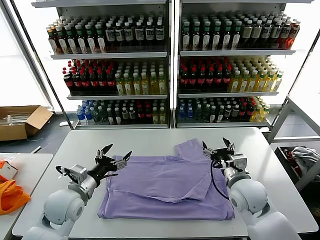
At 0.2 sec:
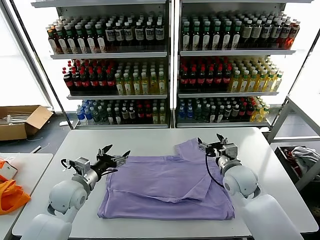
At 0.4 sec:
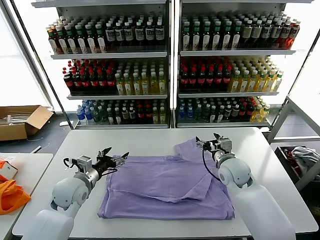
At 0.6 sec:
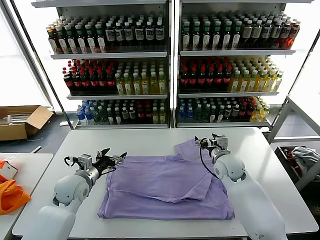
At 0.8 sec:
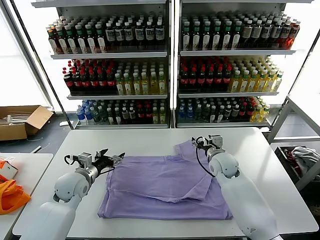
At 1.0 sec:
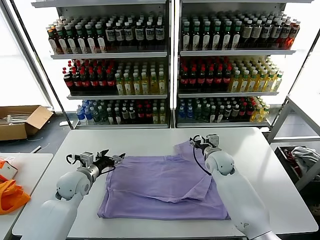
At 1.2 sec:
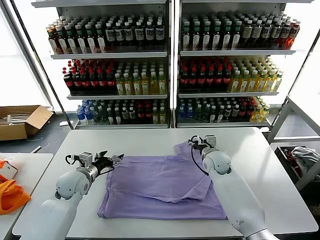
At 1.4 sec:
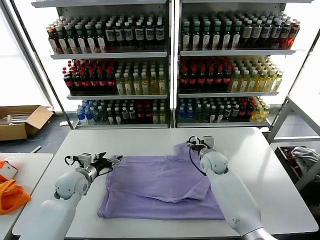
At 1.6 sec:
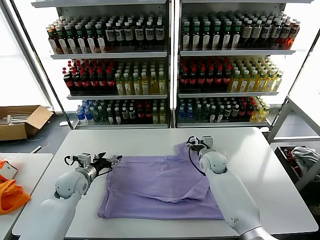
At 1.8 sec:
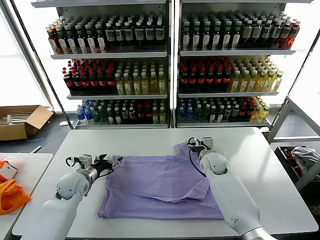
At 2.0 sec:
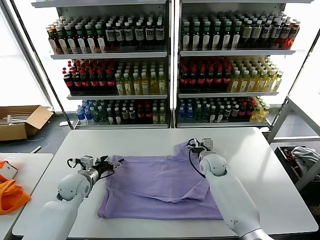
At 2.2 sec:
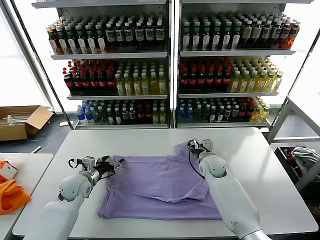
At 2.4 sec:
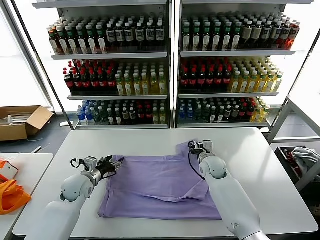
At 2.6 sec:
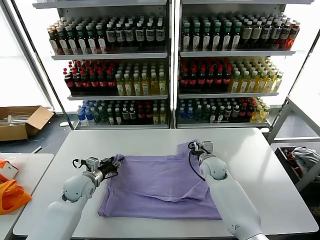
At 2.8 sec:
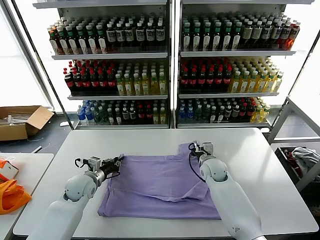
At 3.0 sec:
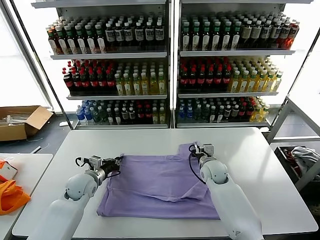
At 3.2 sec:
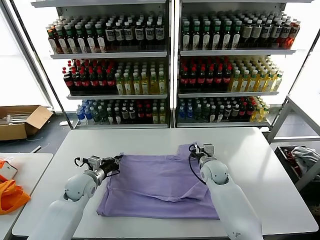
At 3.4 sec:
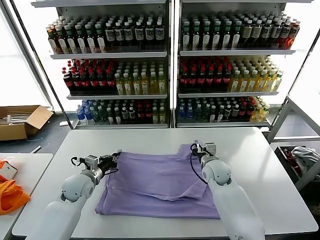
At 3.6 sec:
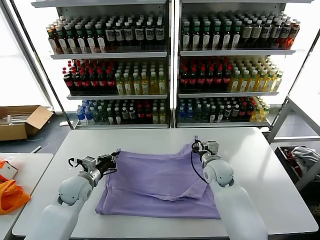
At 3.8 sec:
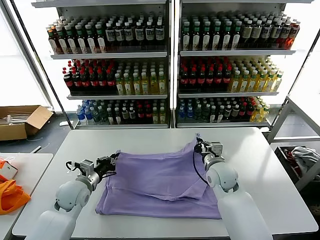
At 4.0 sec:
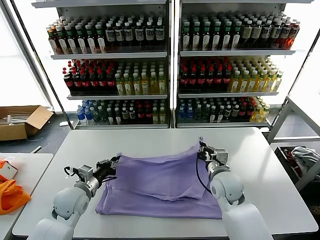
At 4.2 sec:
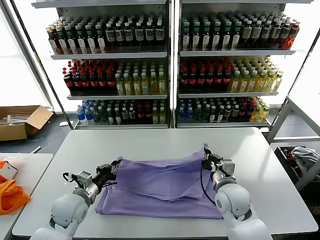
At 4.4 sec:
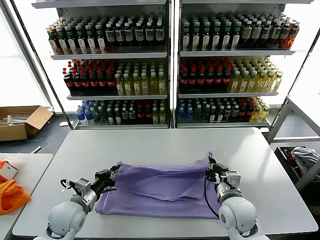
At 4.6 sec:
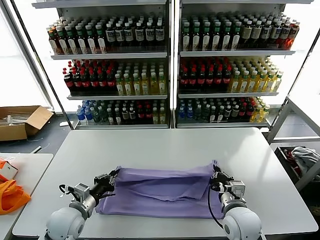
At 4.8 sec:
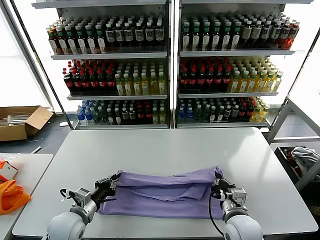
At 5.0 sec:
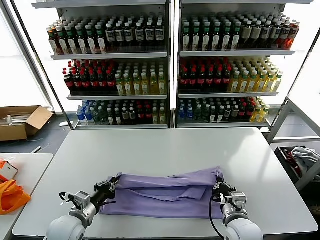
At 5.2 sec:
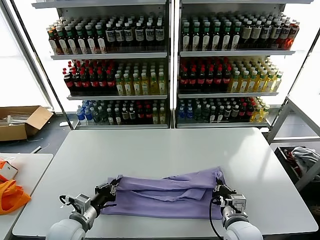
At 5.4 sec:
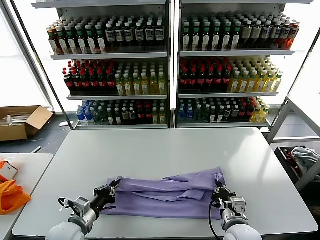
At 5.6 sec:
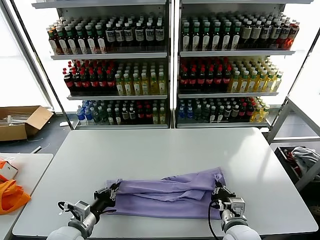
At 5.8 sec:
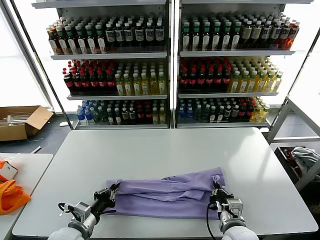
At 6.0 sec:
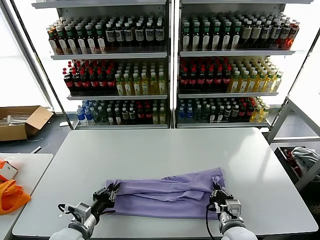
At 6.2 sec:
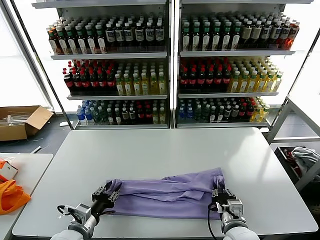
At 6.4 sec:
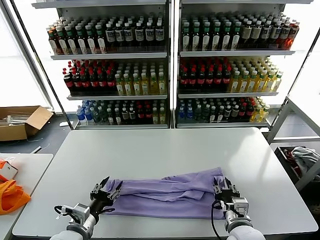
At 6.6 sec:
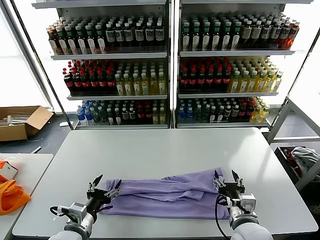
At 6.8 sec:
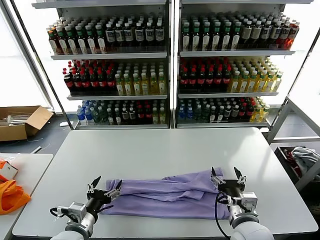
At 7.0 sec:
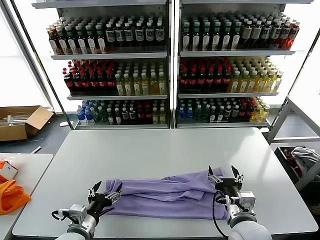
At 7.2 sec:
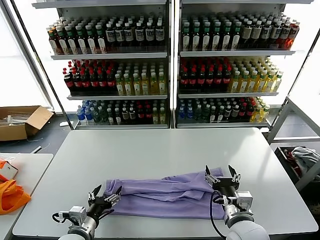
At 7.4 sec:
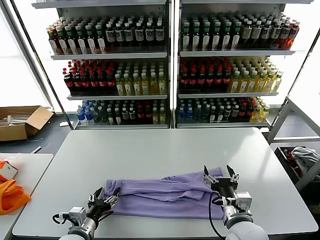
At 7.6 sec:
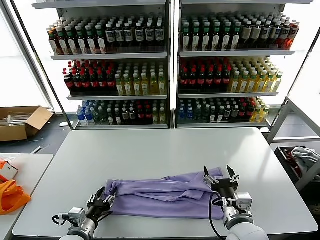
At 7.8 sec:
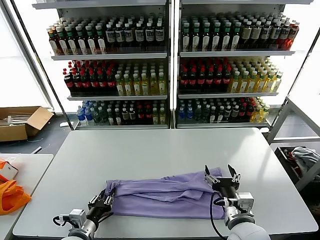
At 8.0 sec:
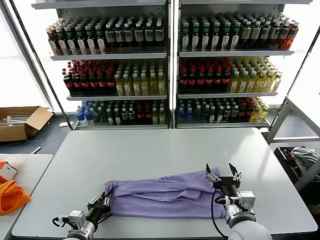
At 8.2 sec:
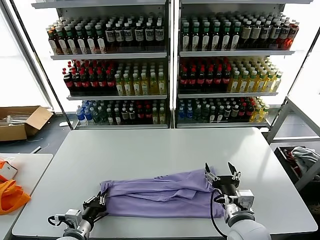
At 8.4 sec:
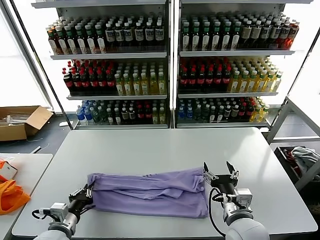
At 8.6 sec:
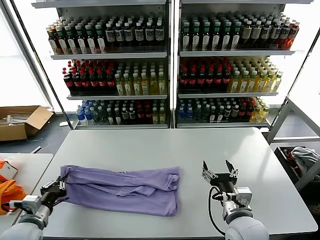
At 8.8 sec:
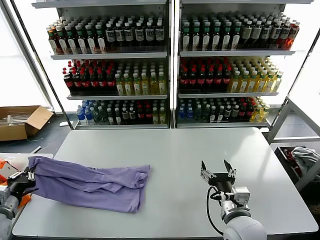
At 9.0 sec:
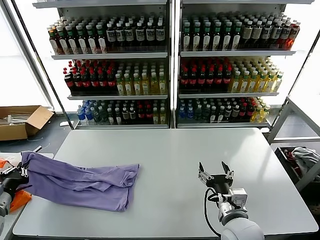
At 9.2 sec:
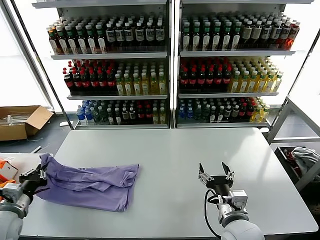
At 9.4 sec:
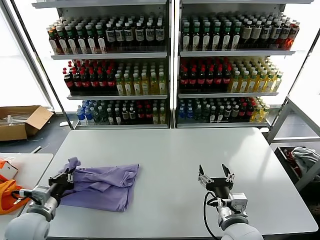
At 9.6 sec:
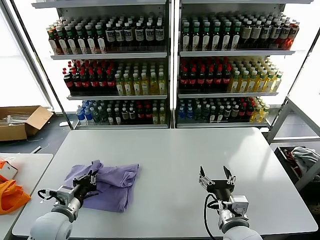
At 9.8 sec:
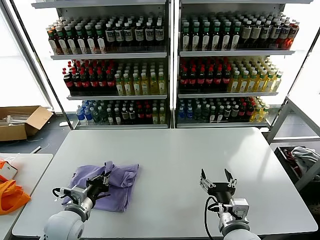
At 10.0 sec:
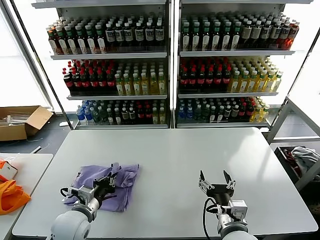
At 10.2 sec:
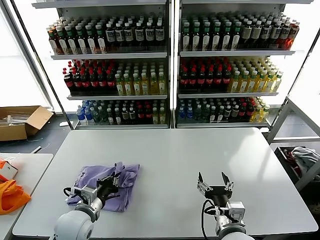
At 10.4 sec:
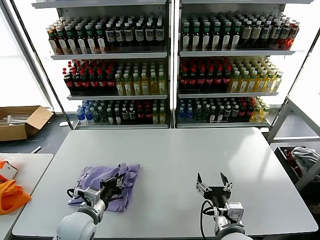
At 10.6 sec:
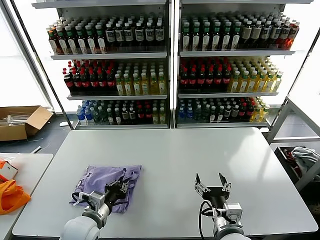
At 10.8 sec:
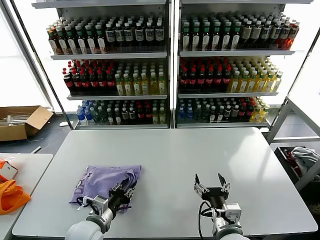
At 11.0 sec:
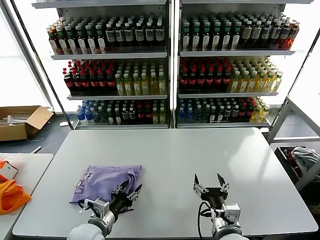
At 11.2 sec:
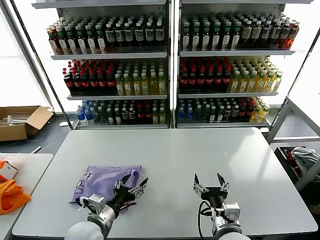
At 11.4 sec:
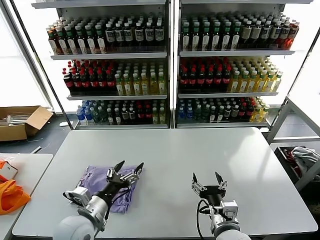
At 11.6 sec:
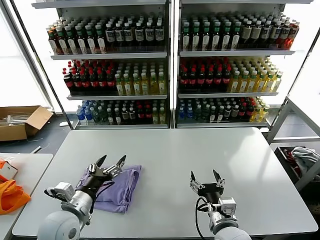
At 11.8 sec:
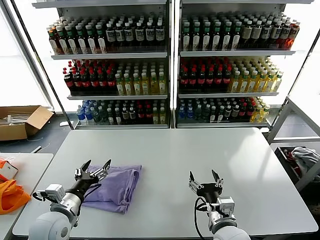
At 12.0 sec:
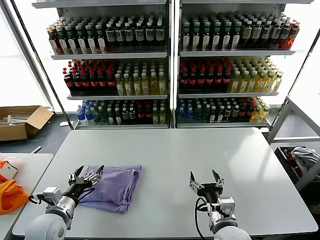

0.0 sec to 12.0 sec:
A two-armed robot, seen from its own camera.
Task of the whole recording: fold and organize the clothes.
Step, 0.0 sec to 3.2 sec: use both grippers simultaneously to clamp the upper edge of the clothing fabric.
Step, 3.4 sec to 6.2 sec: use both grippers to drag the upper edge of the fabric backward and fold it over the lower edge.
Step, 6.4 sec to 8.0 sec: use the left gripper to clamp the left edge of the fabric.
Step, 8.2 sec to 11.0 sec: use the left gripper to drag the left edge of the fabric to the left and folds it over the right edge.
0.0 sec to 1.6 sec: Both grippers travel together forward and downward, roughly 15 cm.
1.6 sec to 3.0 sec: The right gripper closes its fingers. Meanwhile the left gripper closes up.
3.0 sec to 4.4 sec: The left gripper shifts some 10 cm backward. Meanwhile the right gripper goes about 20 cm backward.
4.4 sec to 6.0 sec: The two grippers go approximately 5 cm backward.
6.0 sec to 7.6 sec: The right gripper goes approximately 5 cm upward, and opens its fingers, while the left gripper opens.
7.6 sec to 9.0 sec: The left gripper shifts roughly 25 cm to the left and upward, and closes up.
9.0 sec to 10.4 sec: The left gripper shifts about 25 cm to the right.
10.4 sec to 12.0 sec: The left gripper is displaced to the left by roughly 10 cm, and opens its fingers.

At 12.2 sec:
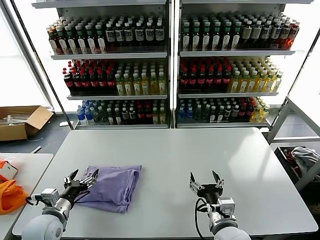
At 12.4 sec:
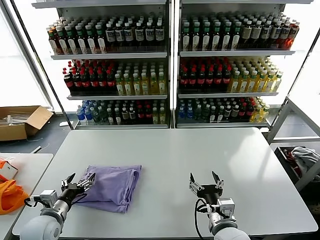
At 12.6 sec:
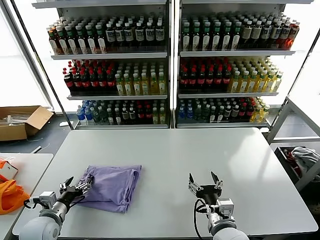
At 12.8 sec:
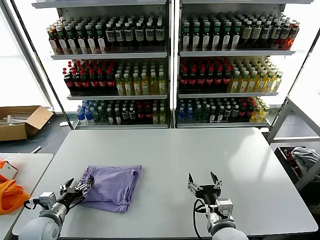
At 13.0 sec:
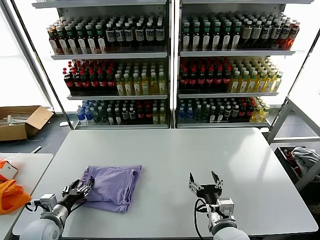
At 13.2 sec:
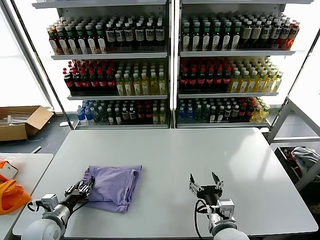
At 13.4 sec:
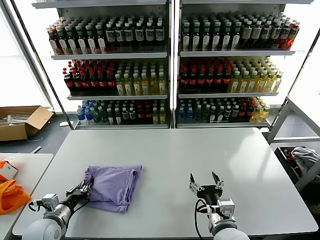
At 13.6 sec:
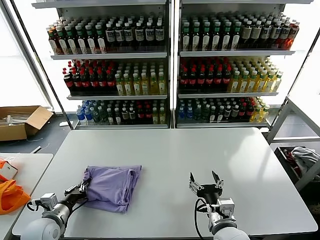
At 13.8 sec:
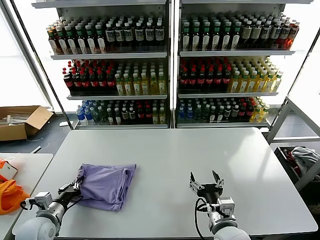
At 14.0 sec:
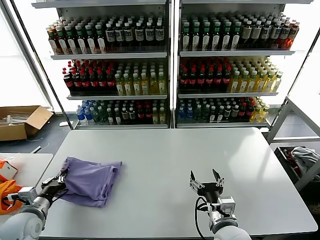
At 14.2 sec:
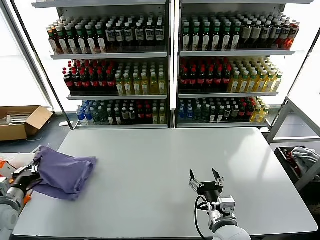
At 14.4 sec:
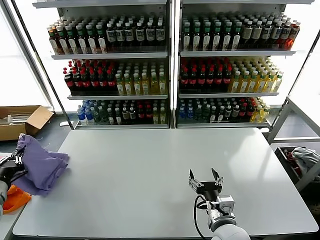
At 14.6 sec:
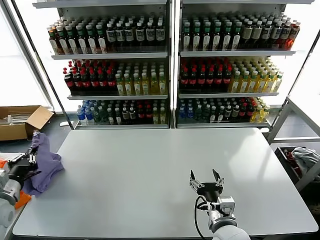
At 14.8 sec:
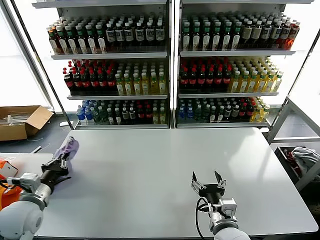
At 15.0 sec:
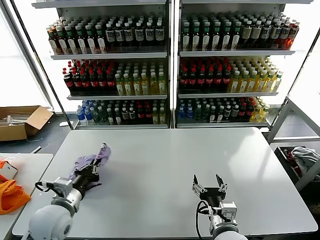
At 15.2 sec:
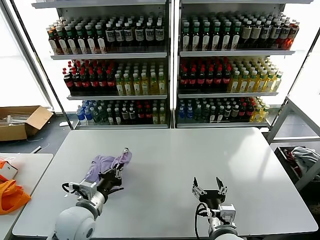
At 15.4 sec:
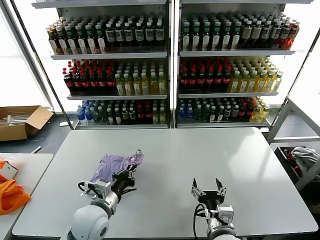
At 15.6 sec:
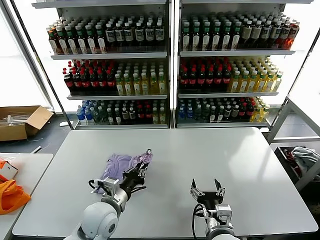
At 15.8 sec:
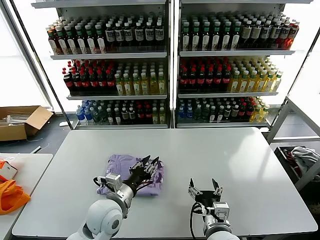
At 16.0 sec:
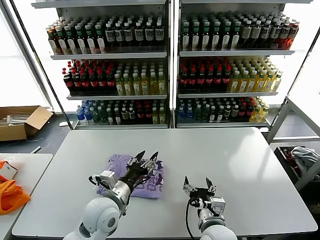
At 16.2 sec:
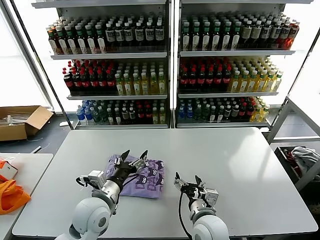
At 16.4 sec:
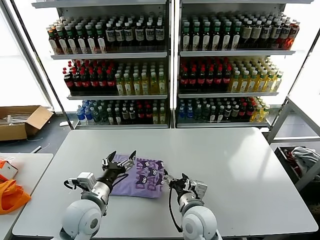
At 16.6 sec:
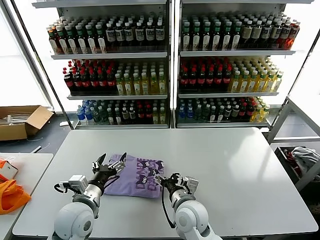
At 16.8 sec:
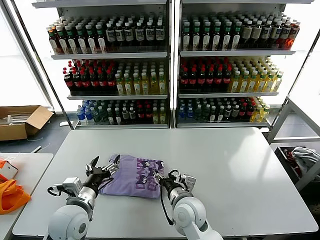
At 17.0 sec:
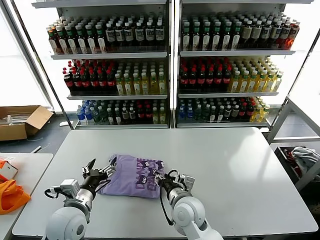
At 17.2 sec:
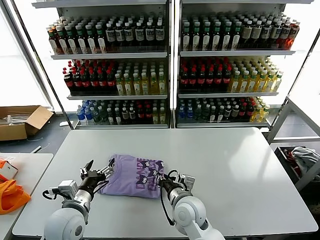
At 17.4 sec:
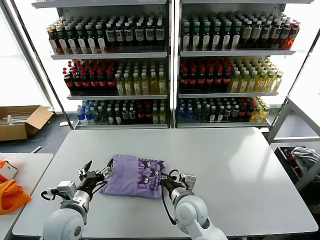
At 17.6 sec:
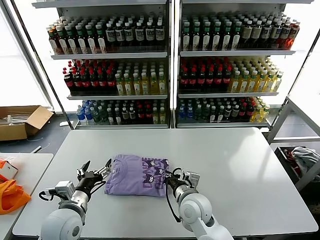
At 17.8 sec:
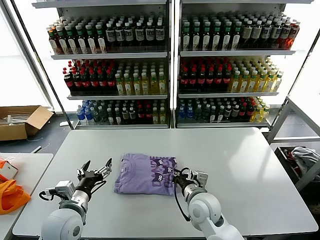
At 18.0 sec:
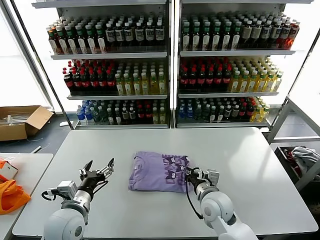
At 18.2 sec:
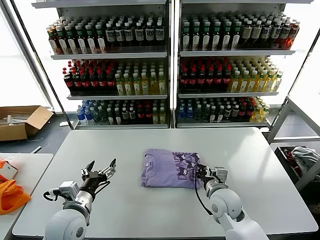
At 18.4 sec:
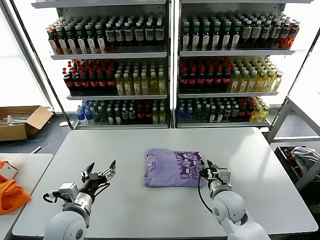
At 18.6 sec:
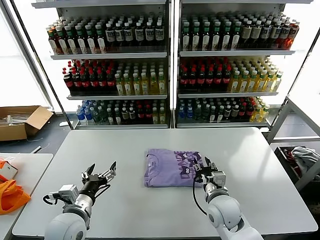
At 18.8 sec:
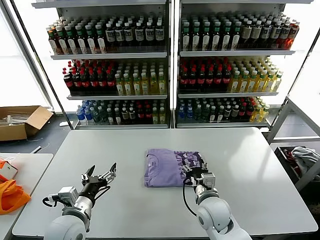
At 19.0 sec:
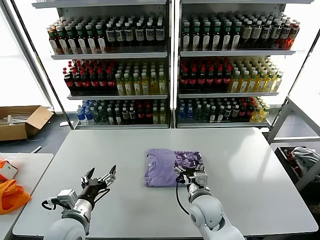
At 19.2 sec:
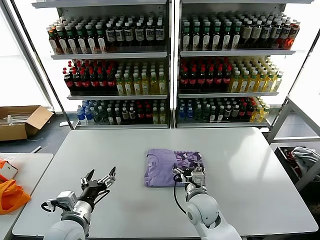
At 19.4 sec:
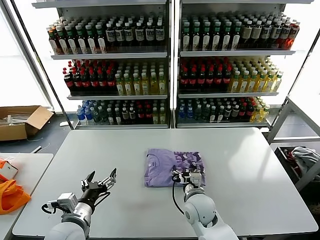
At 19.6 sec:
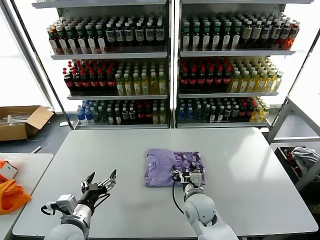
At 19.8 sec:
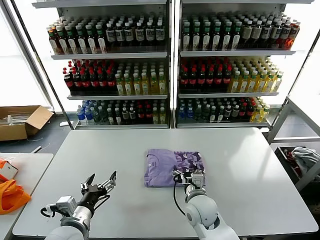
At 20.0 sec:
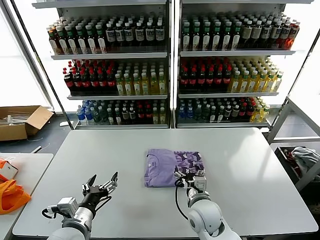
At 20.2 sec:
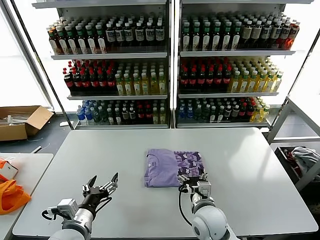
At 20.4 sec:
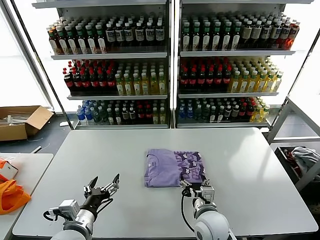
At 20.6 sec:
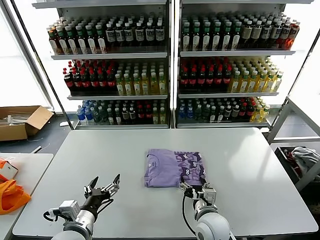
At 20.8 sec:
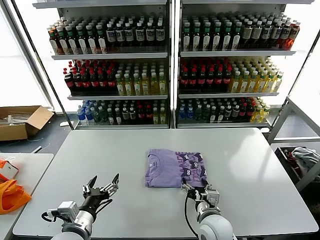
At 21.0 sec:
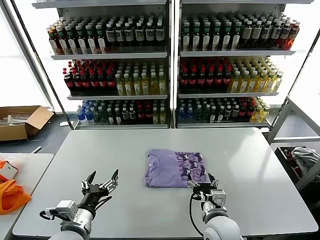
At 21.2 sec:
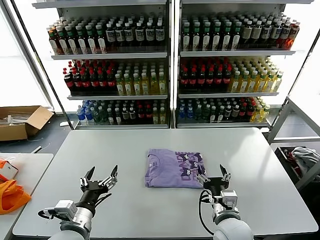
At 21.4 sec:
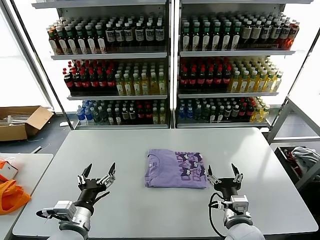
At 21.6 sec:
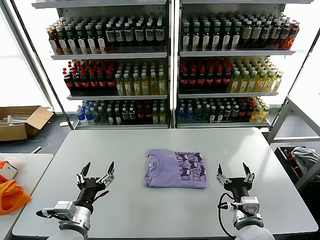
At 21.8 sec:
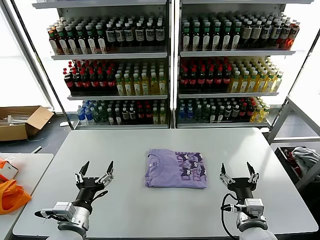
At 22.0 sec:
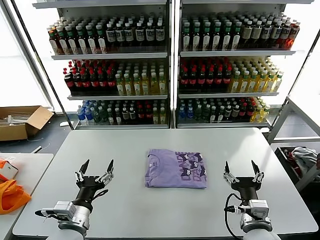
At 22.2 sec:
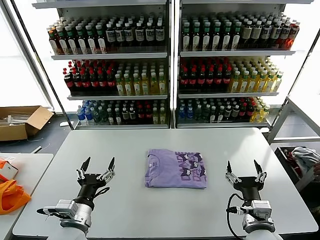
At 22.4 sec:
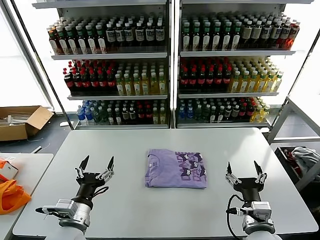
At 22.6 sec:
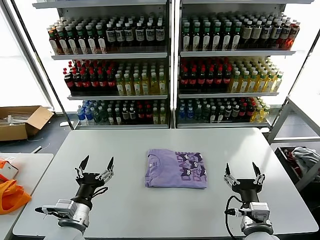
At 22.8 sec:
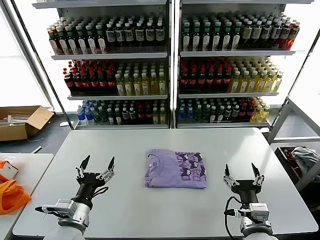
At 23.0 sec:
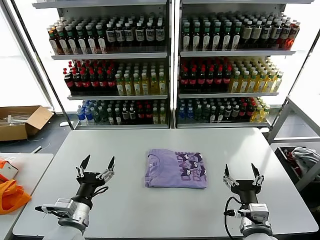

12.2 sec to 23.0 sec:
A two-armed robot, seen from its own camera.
Task of the whole recording: fold and organize the clothes.
Step, 12.2 sec to 15.8 sec: Flip the folded clothes over with left gripper.
Step, 16.0 sec to 20.8 sec: Drag the clothes to the center of the table.
12.2 sec to 13.8 sec: The left gripper closes.
13.8 sec to 15.2 sec: The left gripper moves to the right and upward, about 15 cm.
15.2 sec to 16.8 sec: The right gripper is displaced forward and to the left by approximately 15 cm; the left gripper travels to the right and back again, roughly 10 cm each way, and opens its fingers.
16.8 sec to 18.4 sec: The right gripper moves to the right, some 15 cm, and closes its fingers.
18.4 sec to 20.0 sec: The right gripper travels to the left by some 10 cm, and opens up.
20.0 sec to 21.4 sec: The right gripper moves backward and to the right, roughly 10 cm.
21.4 sec to 23.0 sec: The right gripper changes place by approximately 5 cm.
